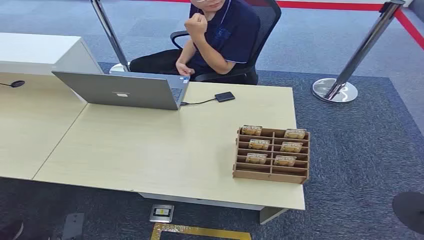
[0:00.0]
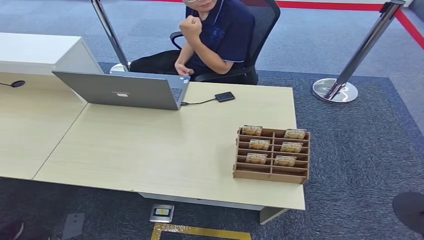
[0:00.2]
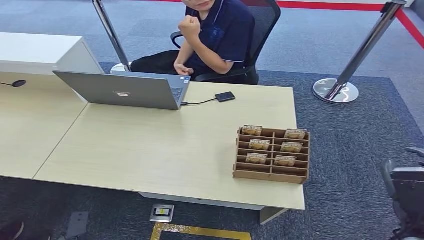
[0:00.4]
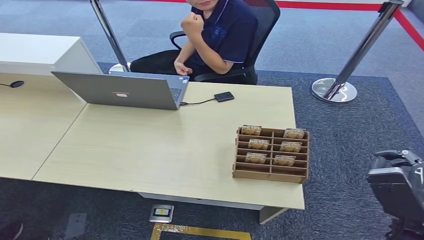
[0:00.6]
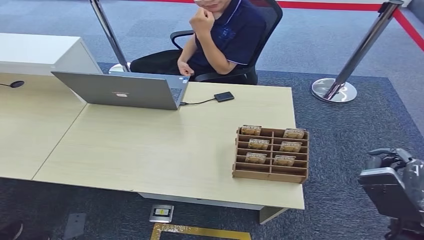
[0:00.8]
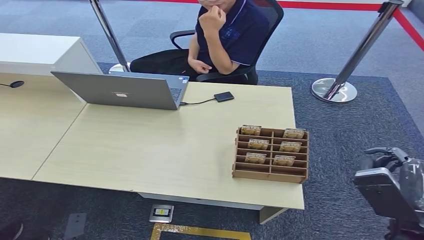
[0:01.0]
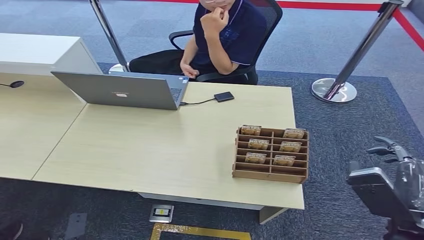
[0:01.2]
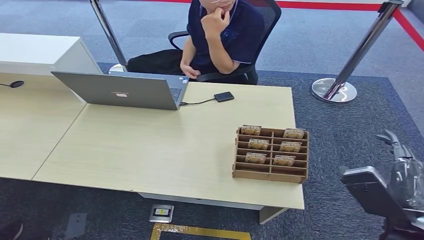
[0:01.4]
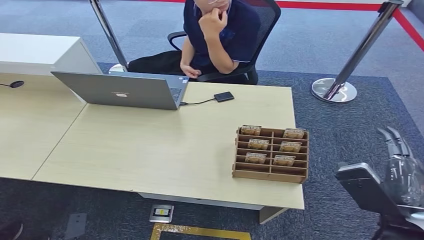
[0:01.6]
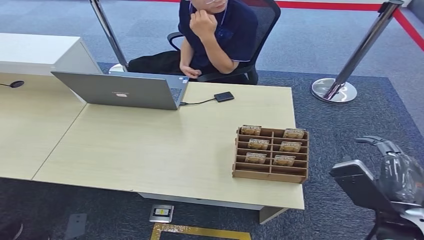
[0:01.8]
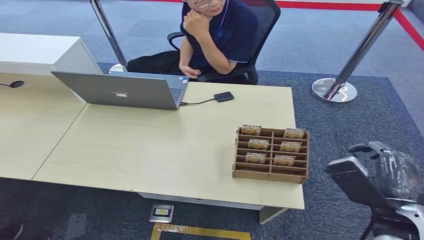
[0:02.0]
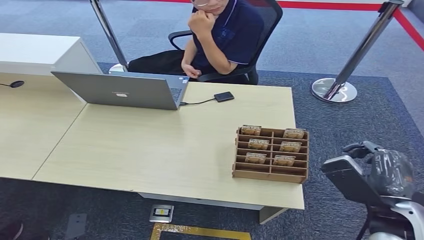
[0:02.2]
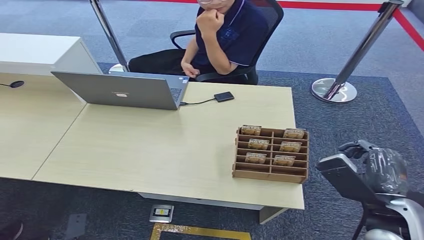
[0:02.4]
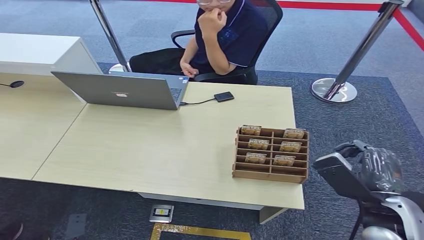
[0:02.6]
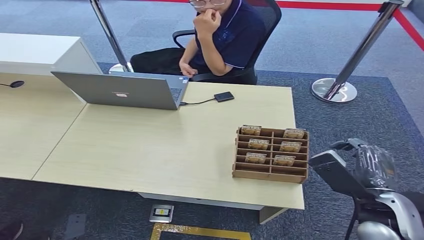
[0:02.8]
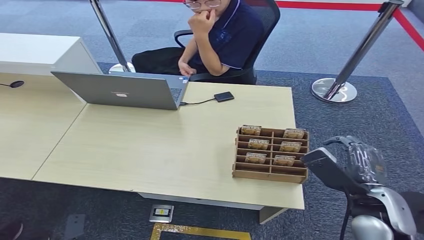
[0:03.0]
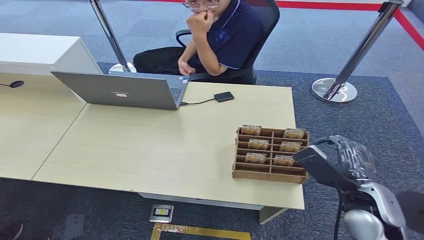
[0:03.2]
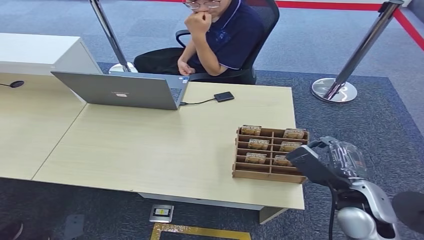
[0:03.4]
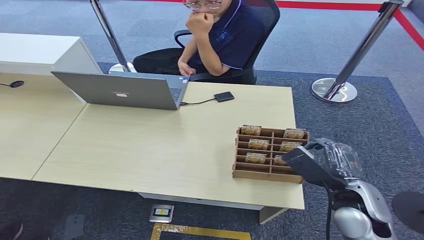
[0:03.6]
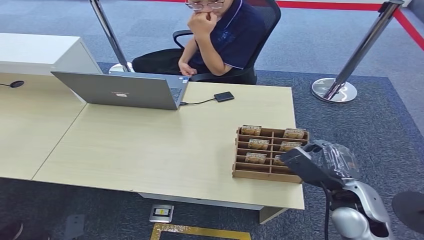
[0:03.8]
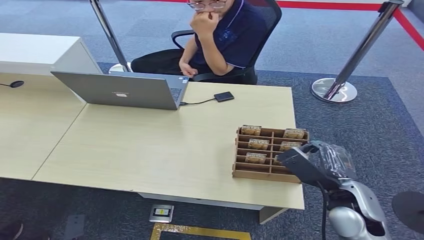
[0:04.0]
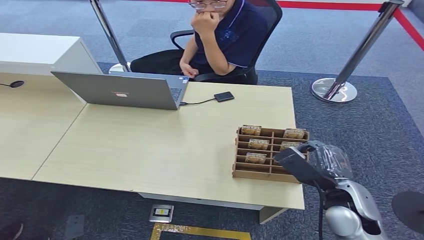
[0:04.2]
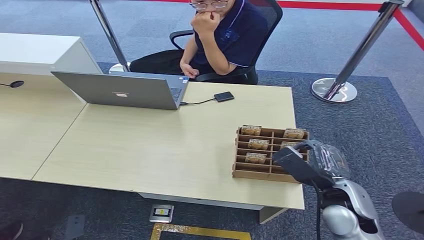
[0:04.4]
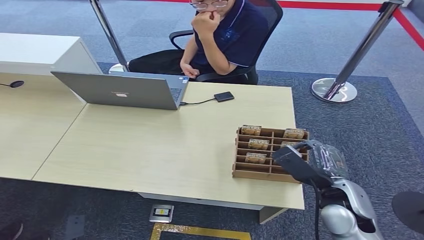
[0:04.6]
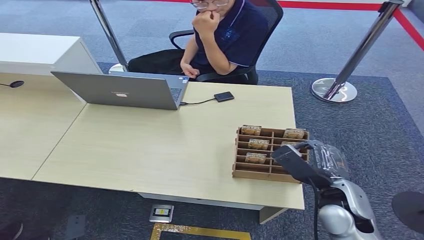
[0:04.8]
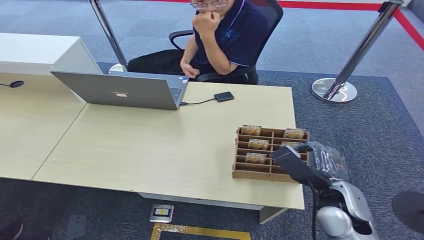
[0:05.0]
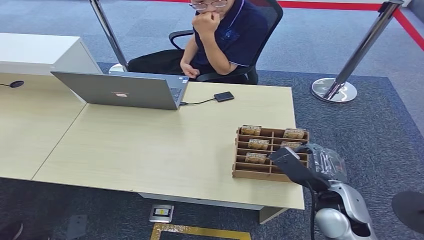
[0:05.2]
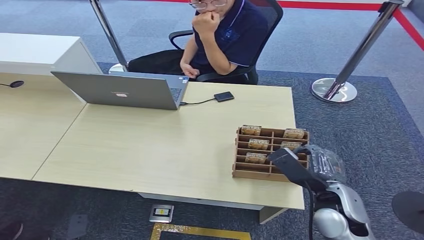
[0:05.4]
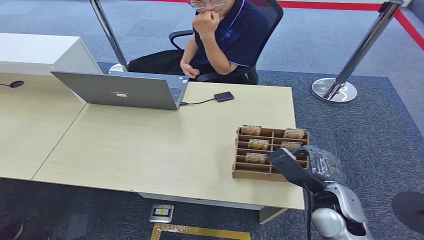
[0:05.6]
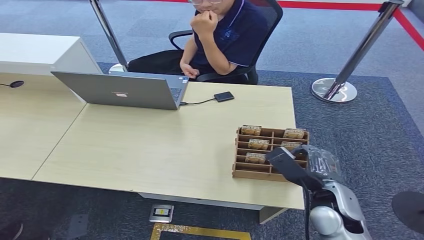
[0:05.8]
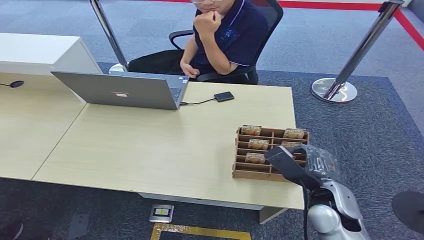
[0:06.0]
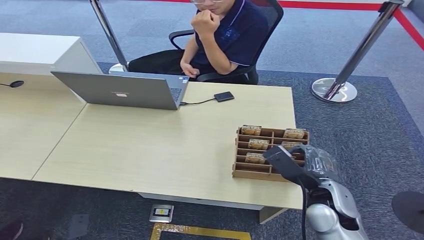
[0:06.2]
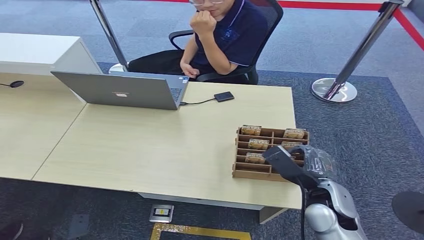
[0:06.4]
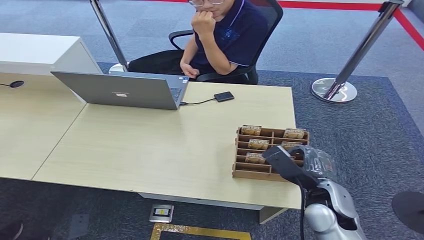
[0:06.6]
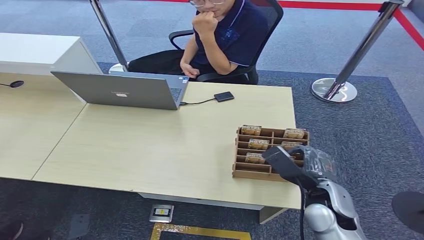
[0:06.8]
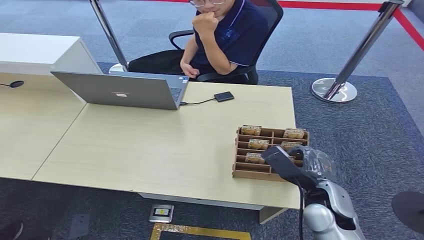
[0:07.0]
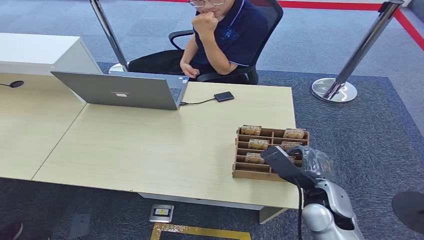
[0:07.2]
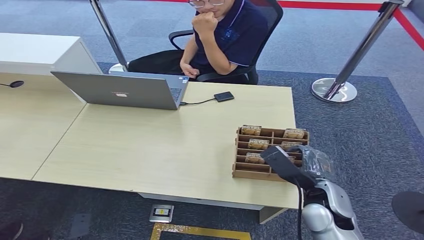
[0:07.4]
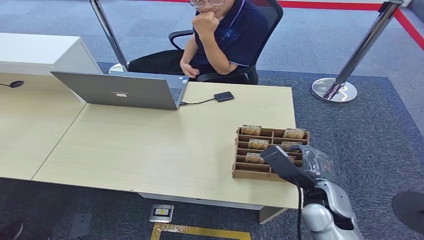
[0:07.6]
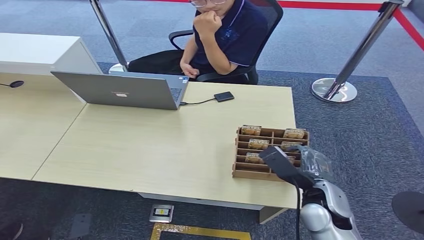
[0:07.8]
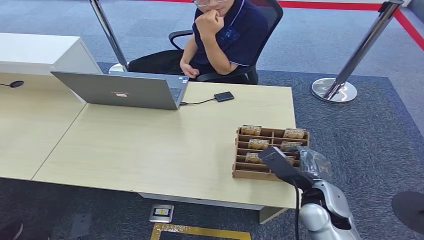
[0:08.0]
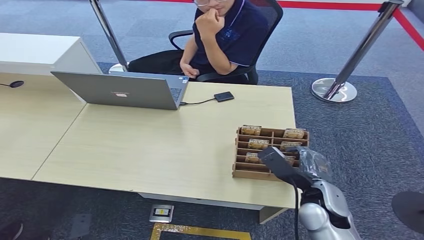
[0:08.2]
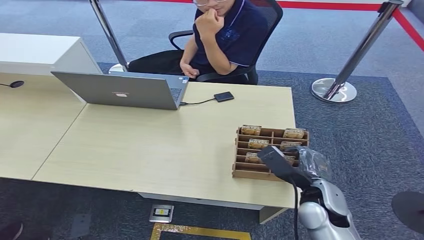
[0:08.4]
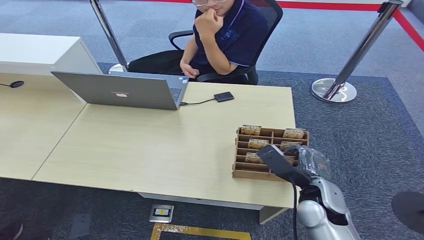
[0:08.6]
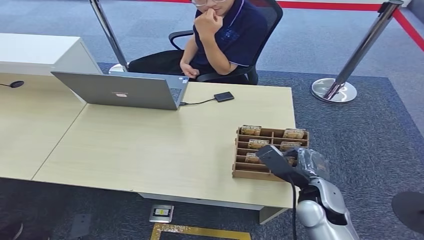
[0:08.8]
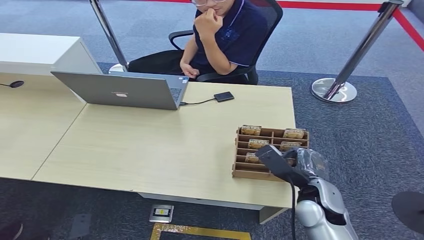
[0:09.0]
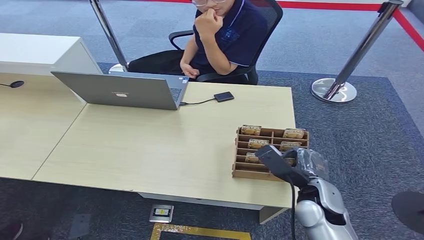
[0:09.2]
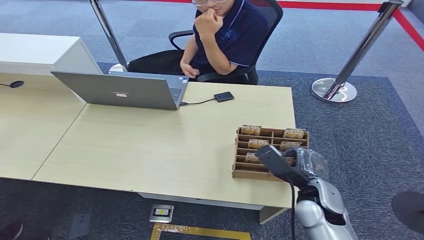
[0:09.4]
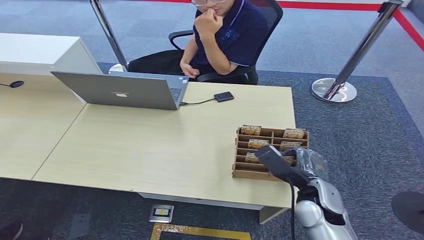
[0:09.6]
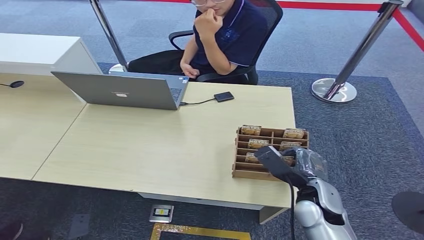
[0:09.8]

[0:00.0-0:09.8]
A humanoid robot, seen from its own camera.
0:01.4 to 0:02.8: There are only small adjustments of the hands.
0:02.8 to 0:04.2: The right hand ends up roughly 5 cm from where it was.
0:04.2 to 0:07.0: The hands make only small movements.
0:07.0 to 0:08.4: Both hands stay put.
0:08.4 to 0:09.8: Both hands stay put.

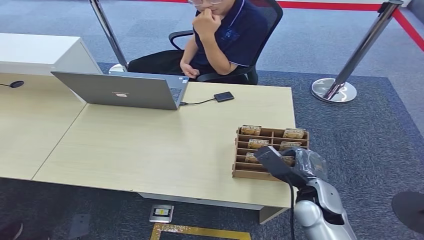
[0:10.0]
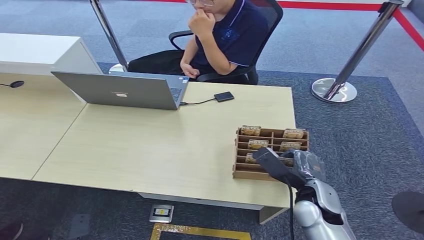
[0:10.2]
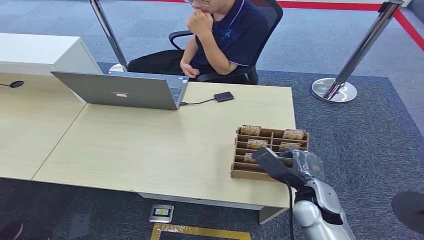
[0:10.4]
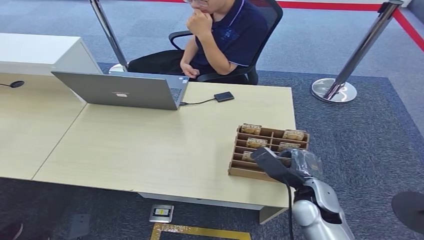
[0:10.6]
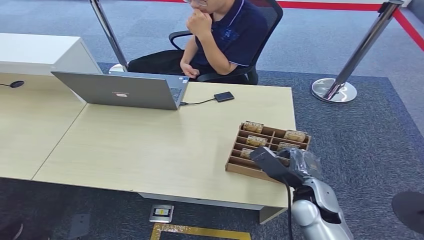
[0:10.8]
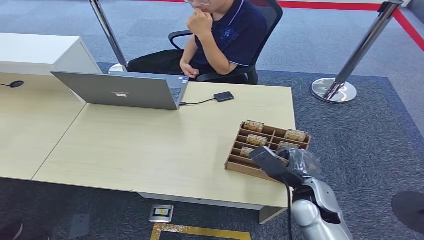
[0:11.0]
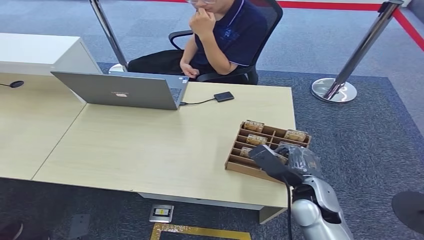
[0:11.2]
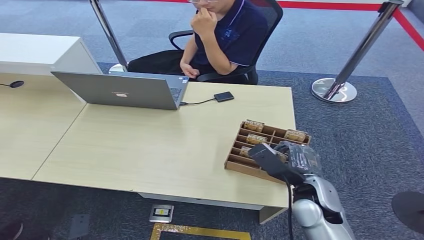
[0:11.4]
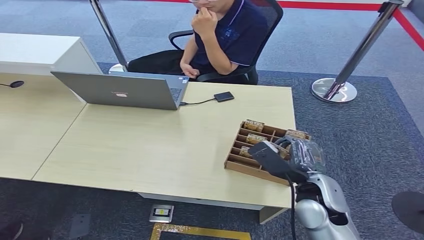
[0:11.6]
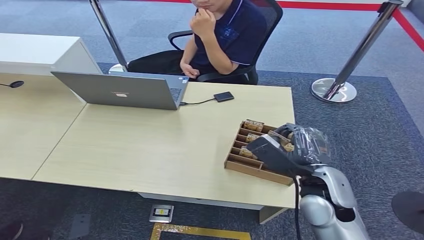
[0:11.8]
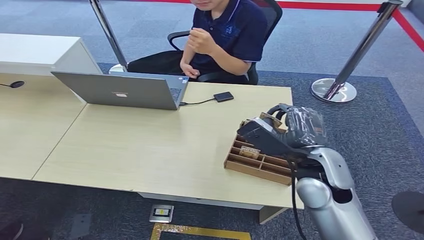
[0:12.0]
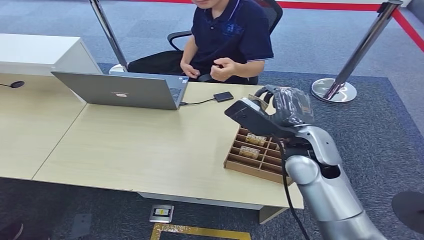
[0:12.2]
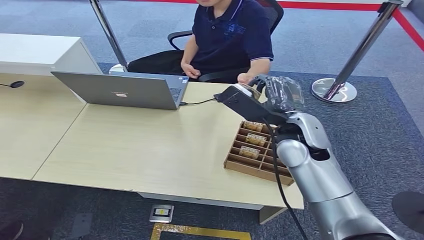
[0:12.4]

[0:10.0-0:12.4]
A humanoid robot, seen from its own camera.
Step, 0:11.2 to 0:12.4: Hand the key card to the target.
0:10.0 to 0:11.2: The hands move only a little.
0:11.2 to 0:12.4: The right hand moves upward and forward, about 20 cm.

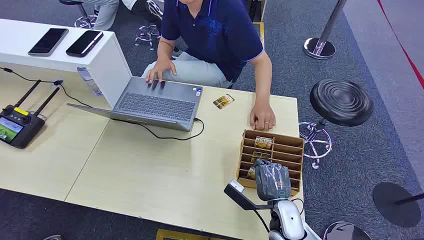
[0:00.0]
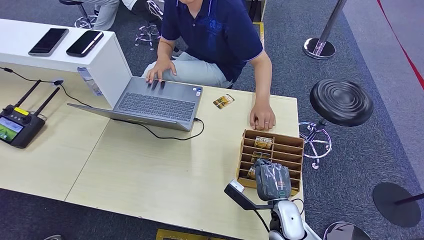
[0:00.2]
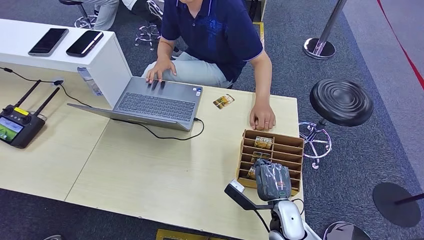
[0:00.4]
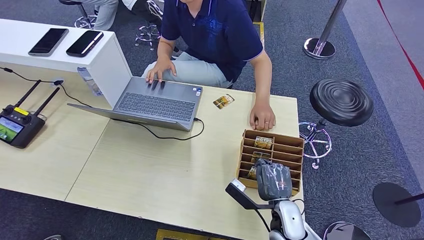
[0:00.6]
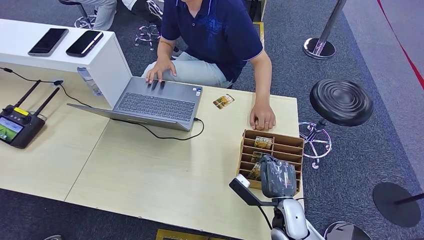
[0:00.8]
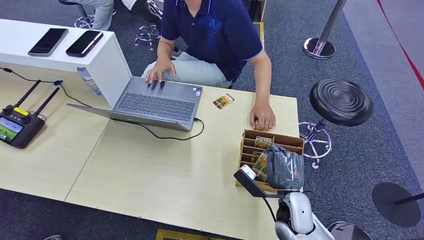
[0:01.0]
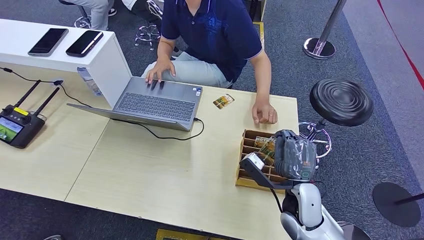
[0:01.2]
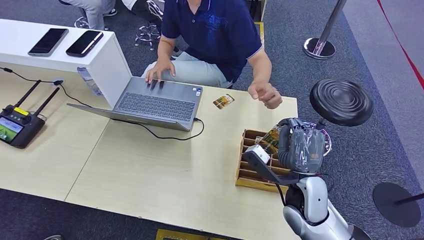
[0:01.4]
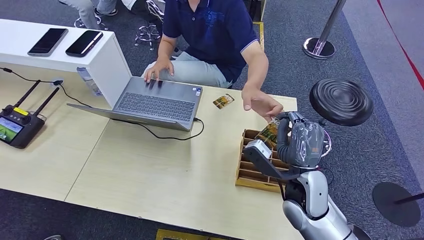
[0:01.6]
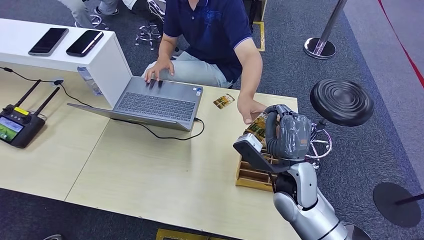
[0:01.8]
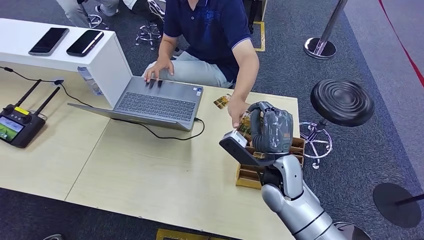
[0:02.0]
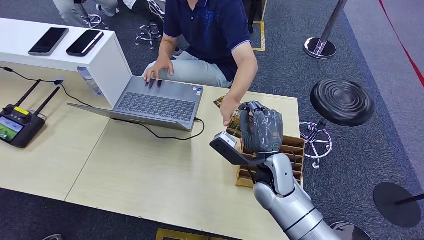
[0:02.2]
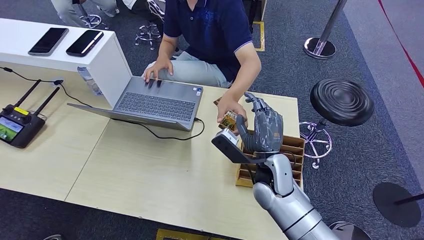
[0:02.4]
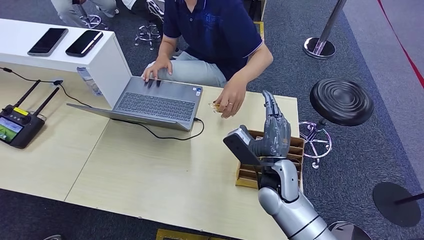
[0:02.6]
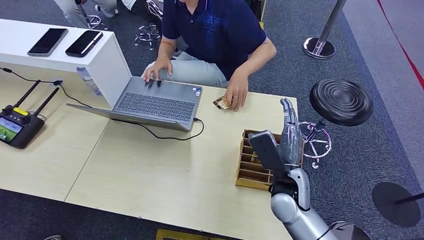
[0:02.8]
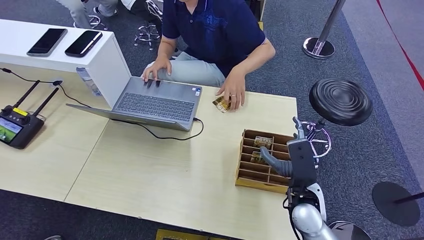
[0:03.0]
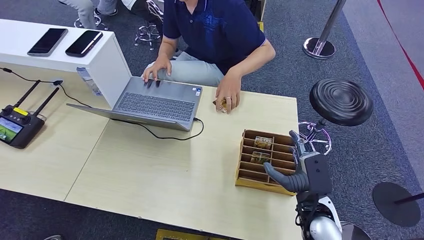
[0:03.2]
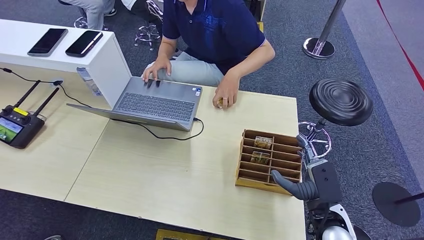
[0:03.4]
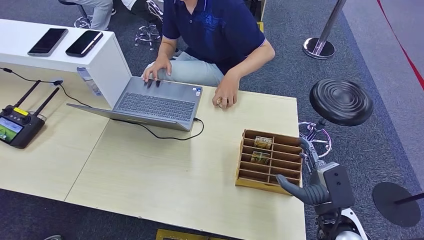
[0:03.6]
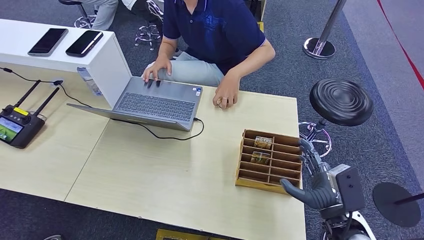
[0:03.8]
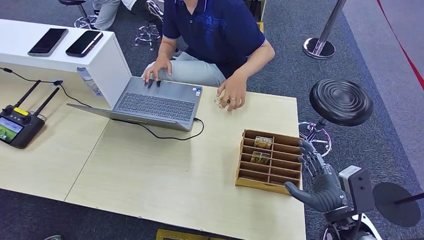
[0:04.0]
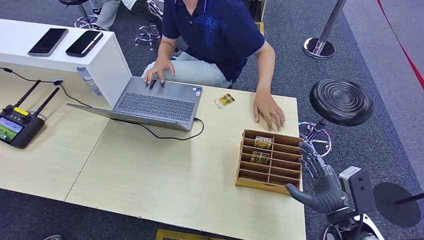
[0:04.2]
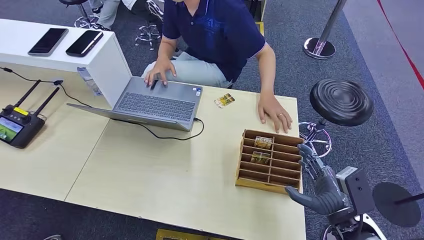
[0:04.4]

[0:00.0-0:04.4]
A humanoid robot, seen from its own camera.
Step, 0:00.0 to 0:01.6: Pick up the key card from the card box.
Step, 0:01.8 to 0:04.2: Hand the key card to the target.
0:01.4 to 0:03.0: The right hand goes to the left and returns, some 5 cm each way.
0:03.0 to 0:04.4: The right hand shifts roughly 10 cm to the right and backward.
